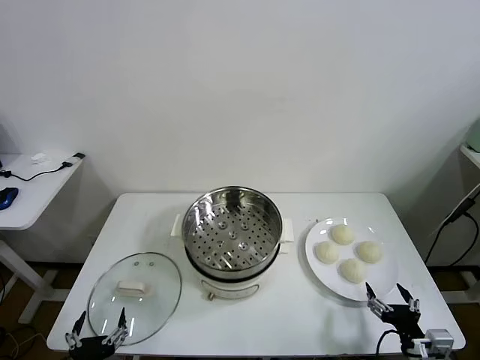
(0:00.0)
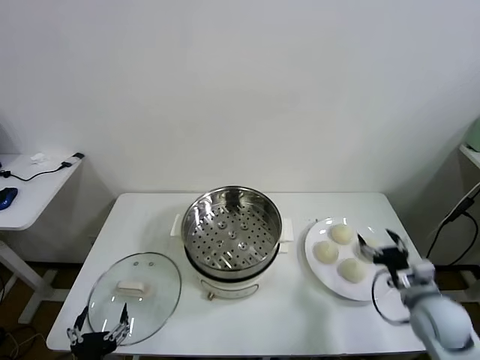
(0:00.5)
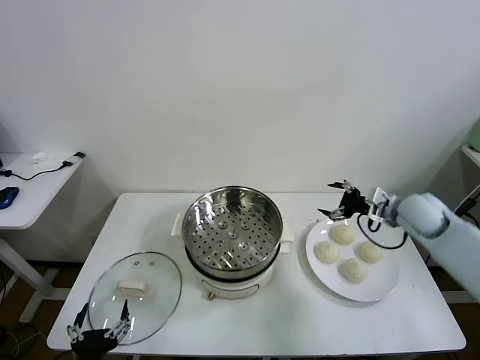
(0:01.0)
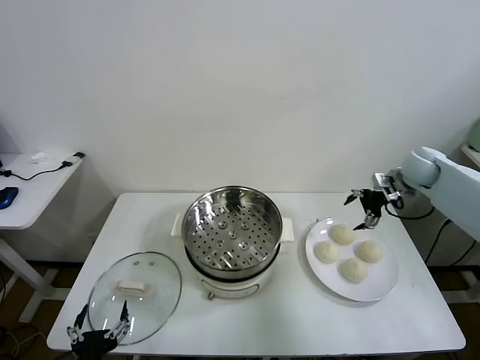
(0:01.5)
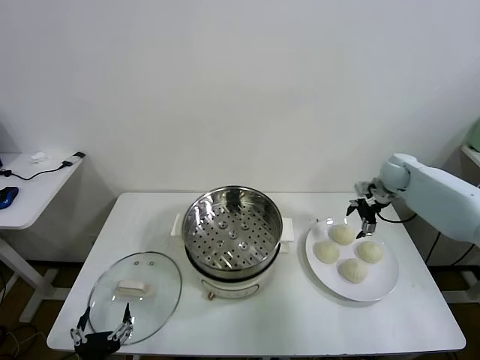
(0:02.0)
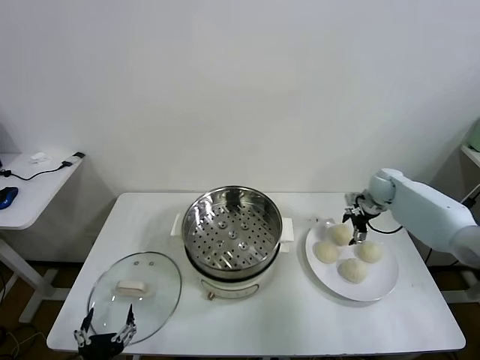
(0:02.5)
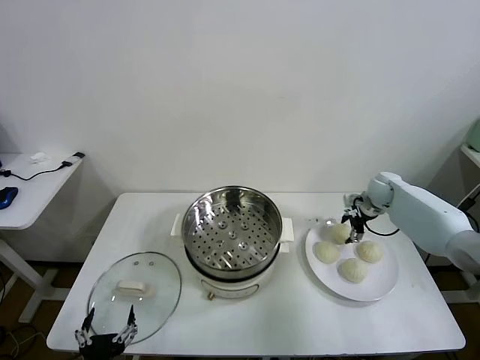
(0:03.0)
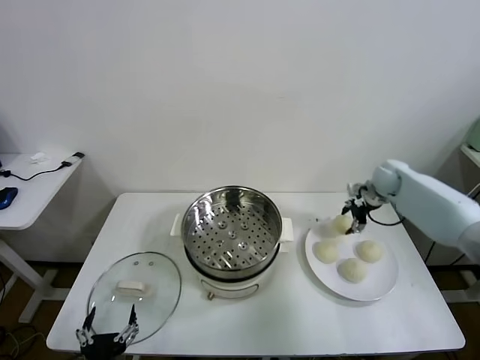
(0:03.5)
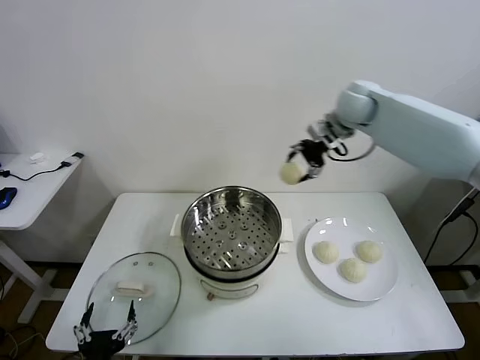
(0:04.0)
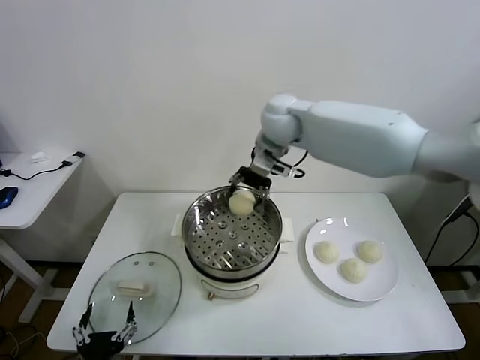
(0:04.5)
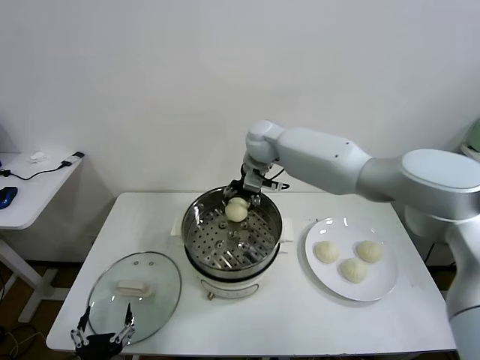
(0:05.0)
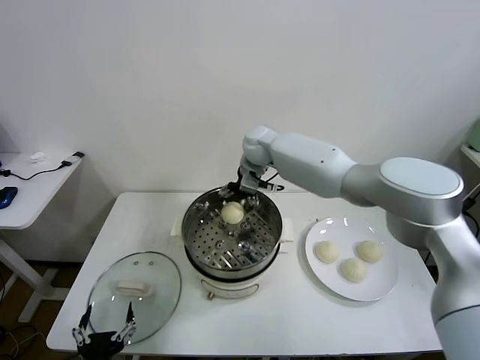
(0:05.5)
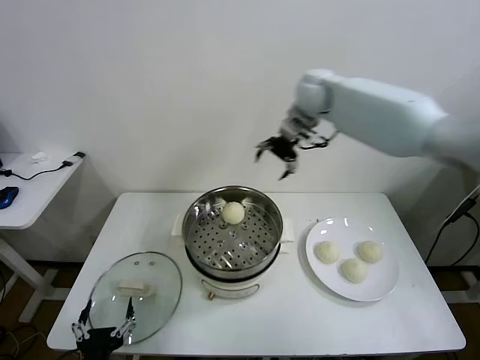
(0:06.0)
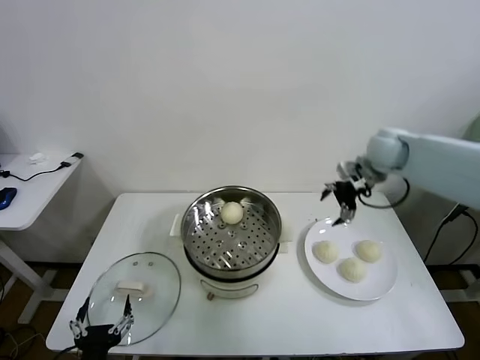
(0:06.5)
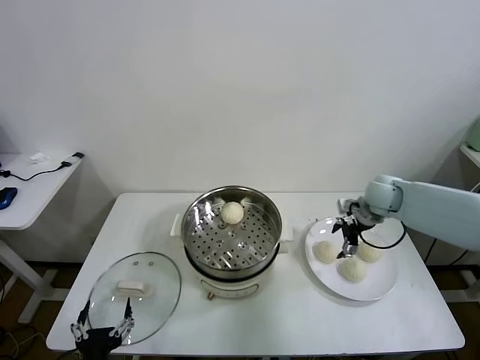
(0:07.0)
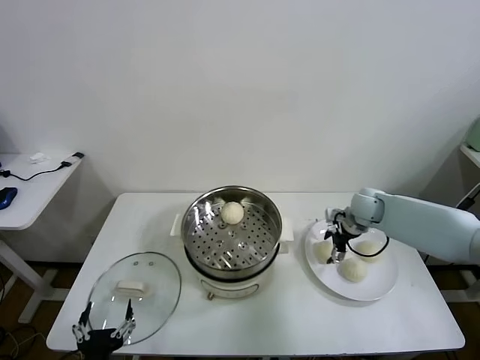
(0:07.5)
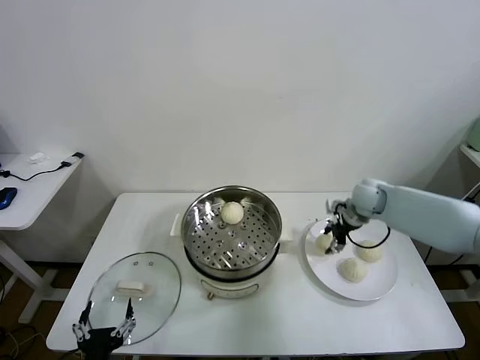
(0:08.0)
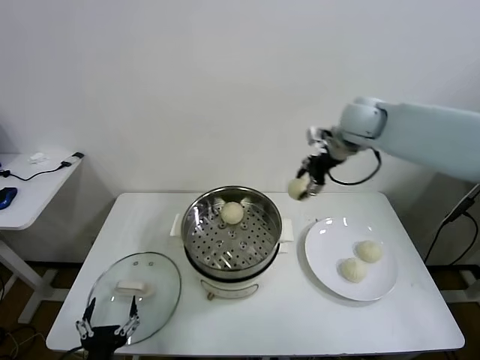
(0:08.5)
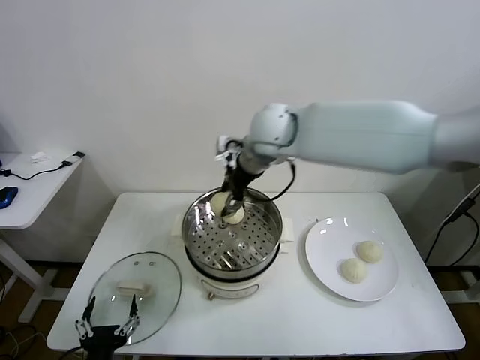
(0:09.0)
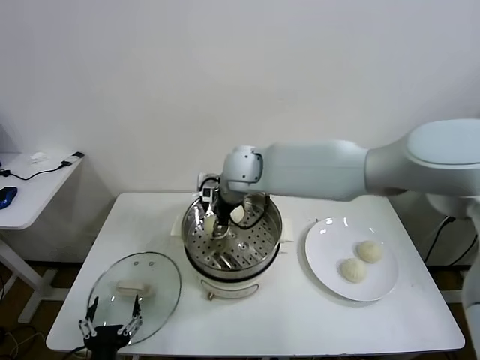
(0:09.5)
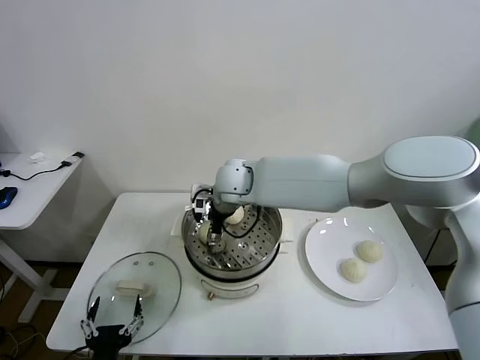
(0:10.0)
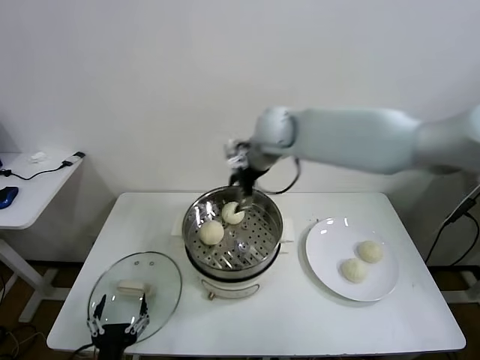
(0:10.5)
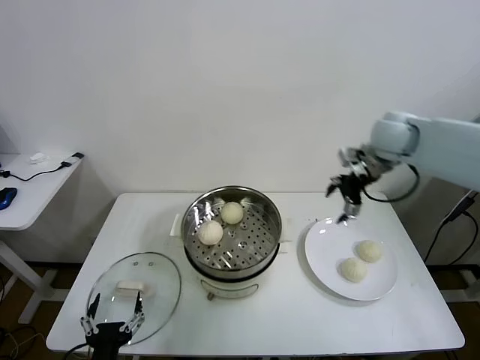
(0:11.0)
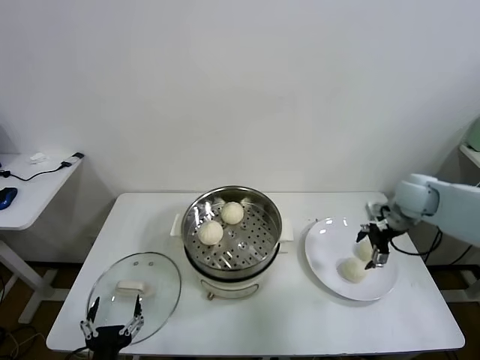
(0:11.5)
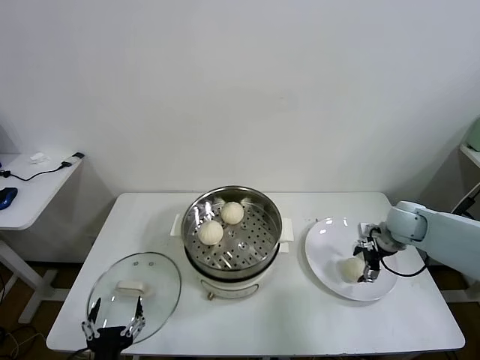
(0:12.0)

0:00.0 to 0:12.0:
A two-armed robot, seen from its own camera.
Task of the whole recording: take steamed baozi put them in steamer.
Step, 0:00.0 to 0:02.5: Grasp the baozi in the plate with right gripper.
Step, 0:03.5 to 0:05.5: Place the baozi on the steamer with right gripper.
Step, 0:06.0 to 0:07.5: Grasp the baozi in the plate with right gripper.
Step, 0:08.0 to 0:10.0: Place the baozi on the steamer with right gripper.
0:02.0 to 0:04.0: The right gripper travels upward and to the left by approximately 30 cm, and closes.
0:04.0 to 0:06.0: The right gripper travels to the left and back again, some 15 cm each way, and opens.
0:06.0 to 0:08.0: The right gripper heads downward and to the right, covering roughly 25 cm, and closes its fingers.
0:08.0 to 0:10.0: The right gripper shifts some 35 cm to the left, and opens up.
0:10.0 to 0:12.0: The right gripper shifts roughly 40 cm to the right.

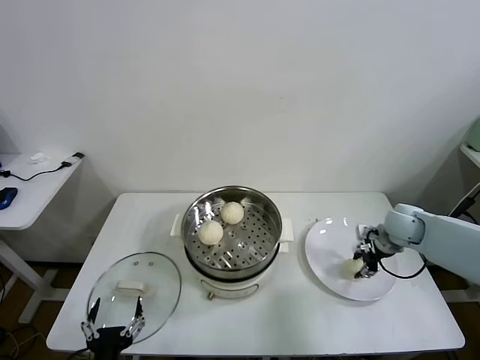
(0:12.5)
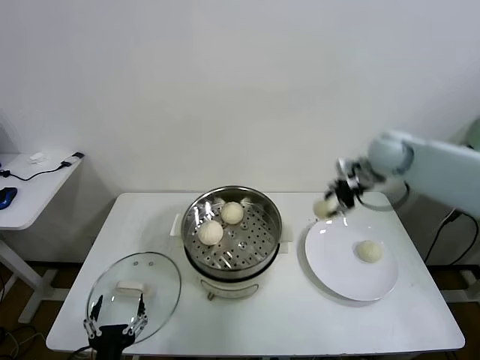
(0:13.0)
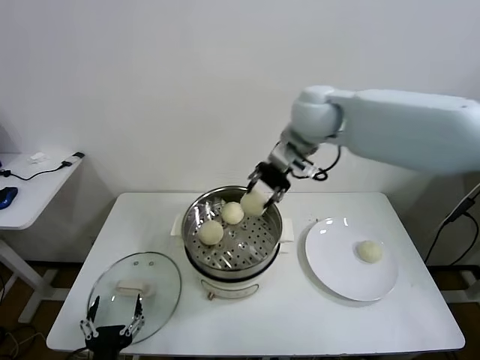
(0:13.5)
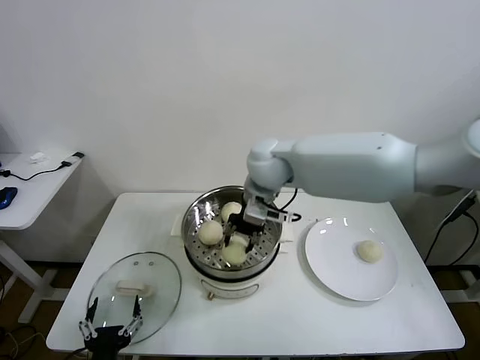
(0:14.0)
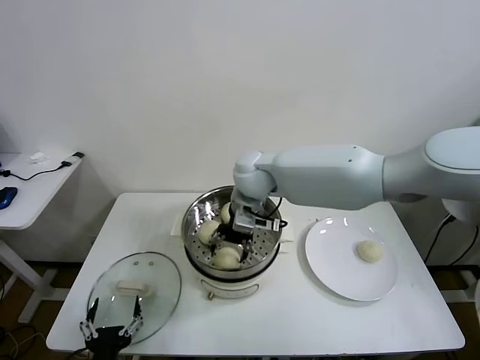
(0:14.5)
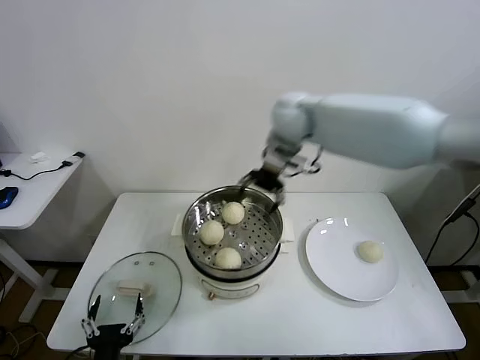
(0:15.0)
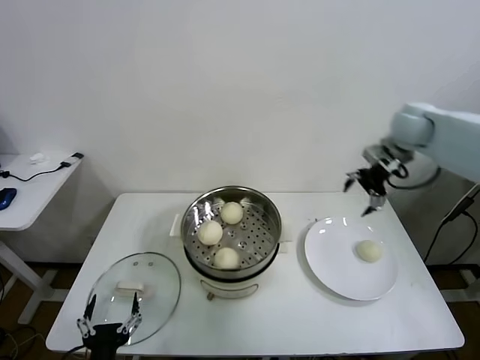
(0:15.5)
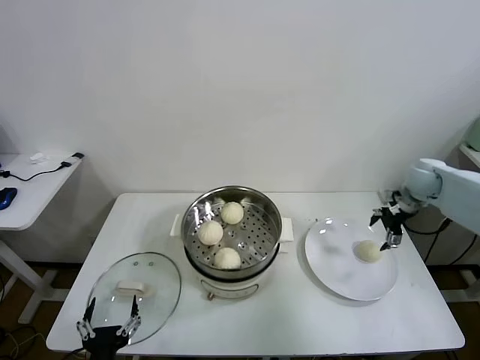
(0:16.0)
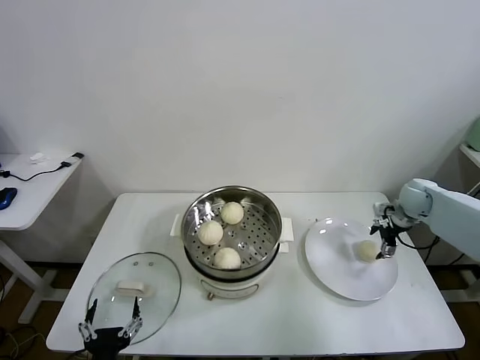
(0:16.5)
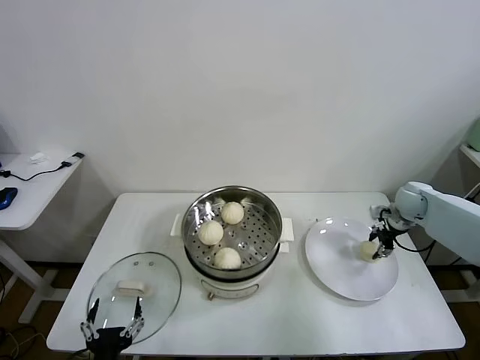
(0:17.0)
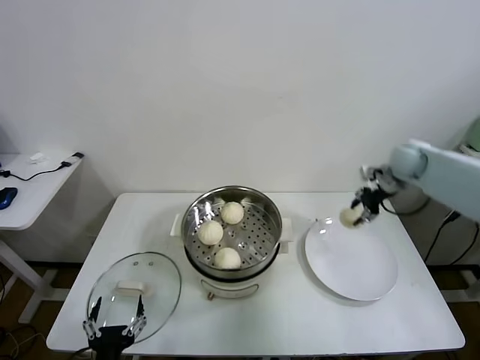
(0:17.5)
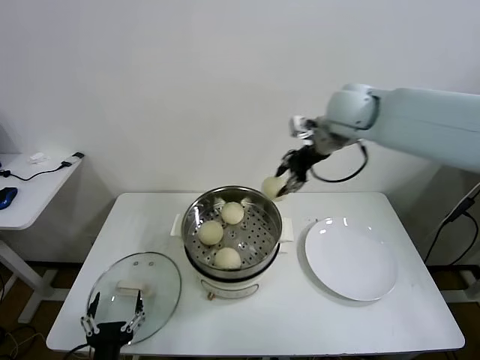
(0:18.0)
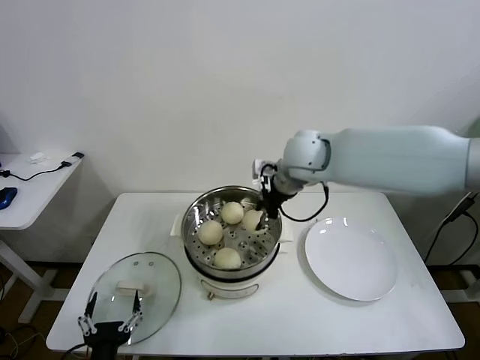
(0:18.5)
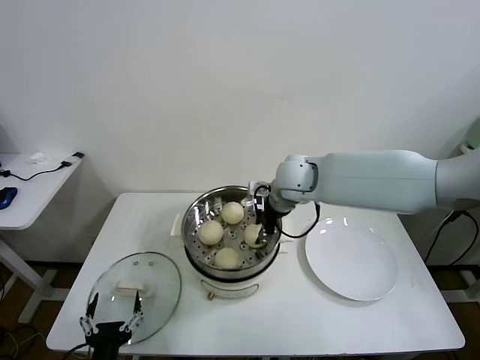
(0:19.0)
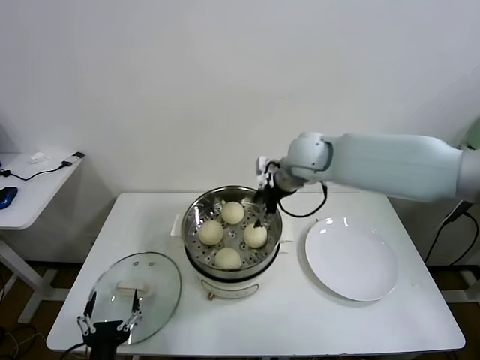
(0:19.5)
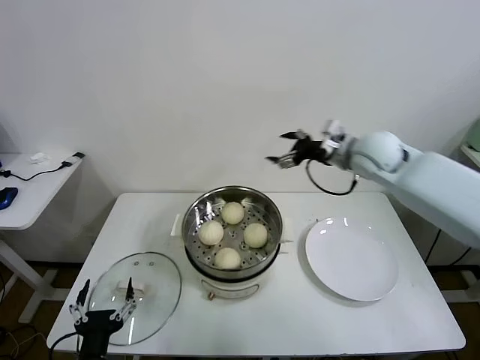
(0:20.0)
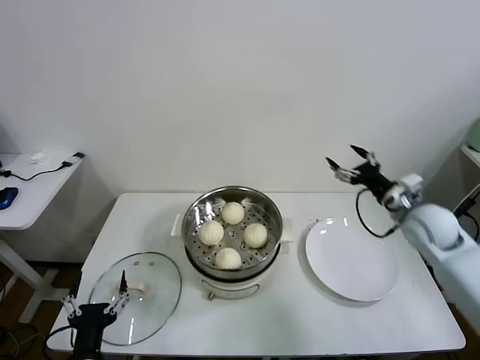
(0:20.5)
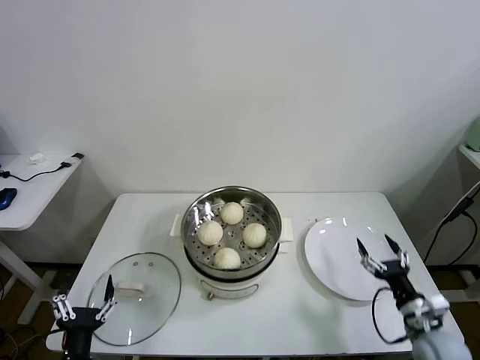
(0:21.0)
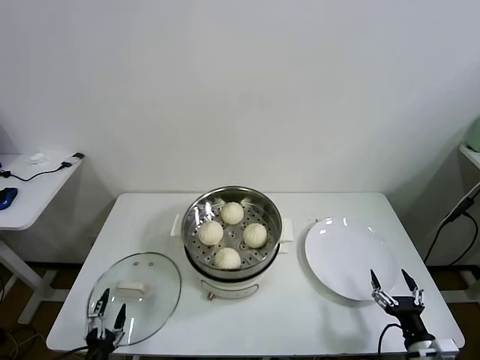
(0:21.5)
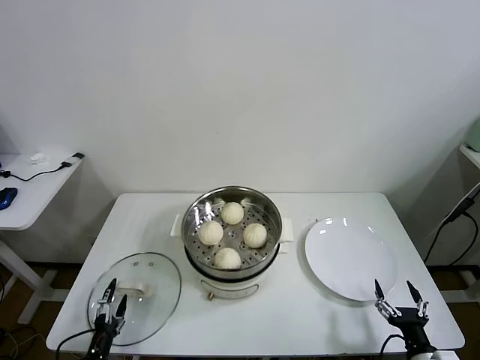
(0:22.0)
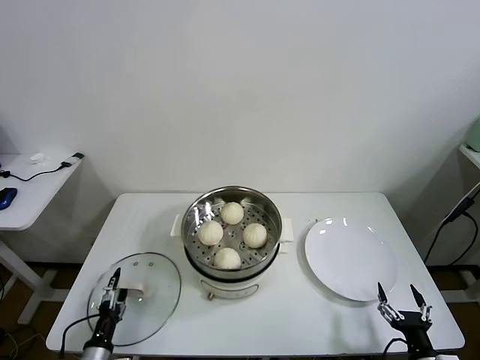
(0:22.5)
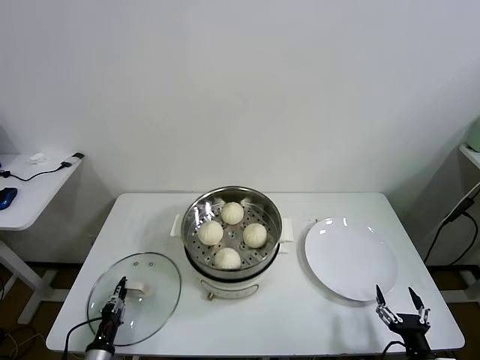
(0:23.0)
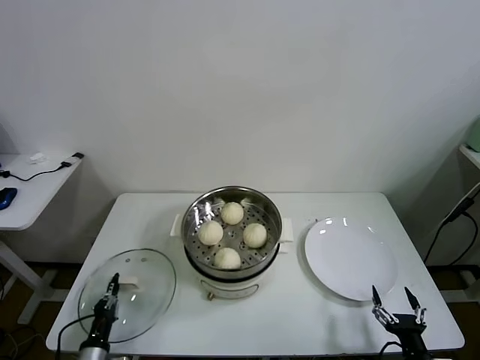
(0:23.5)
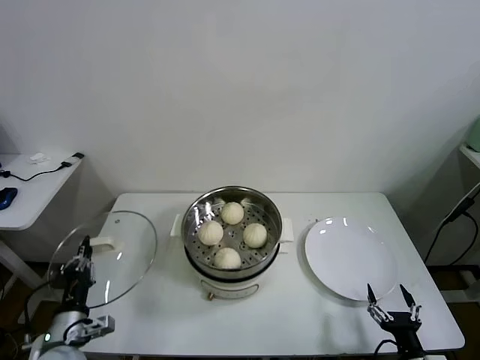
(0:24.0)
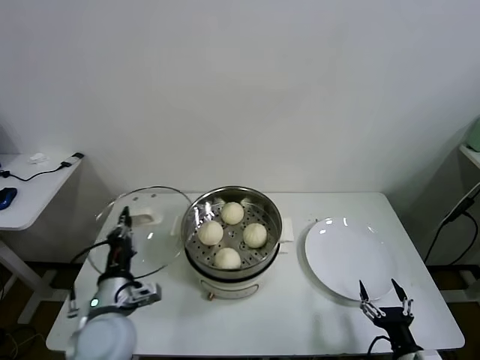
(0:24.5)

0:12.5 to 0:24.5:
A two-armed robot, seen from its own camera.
Task of the whole recording: take steamed baozi put them in steamer.
Step, 0:12.5 to 0:14.5: Place the baozi on the steamer with right gripper.
Step, 0:15.0 to 0:16.5: Grasp the baozi in the plate with right gripper.
Step, 0:17.0 to 0:19.0: Place the baozi on the steamer with right gripper.
Step, 0:19.5 to 0:23.0: Grasp the pot lid with left gripper.
0:12.5 to 0:14.5: The right gripper is displaced to the left by approximately 35 cm, and opens.
0:14.5 to 0:16.5: The right gripper is displaced to the right by roughly 40 cm.
0:16.5 to 0:18.5: The right gripper goes some 35 cm to the left and upward, and closes.
0:18.5 to 0:20.5: The right gripper heads to the right and downward, covering about 30 cm, and opens its fingers.
0:20.5 to 0:22.5: The right gripper heads backward and downward, covering some 35 cm, while the left gripper shifts about 15 cm downward and to the left.
0:22.5 to 0:24.5: The left gripper shifts some 20 cm upward and to the right, and closes.

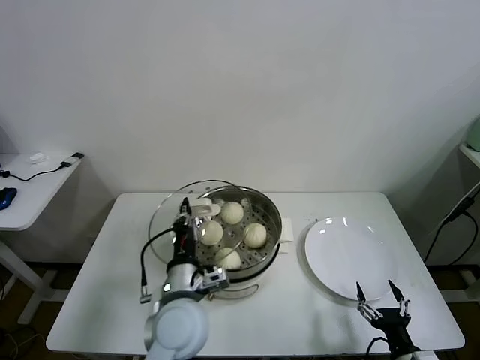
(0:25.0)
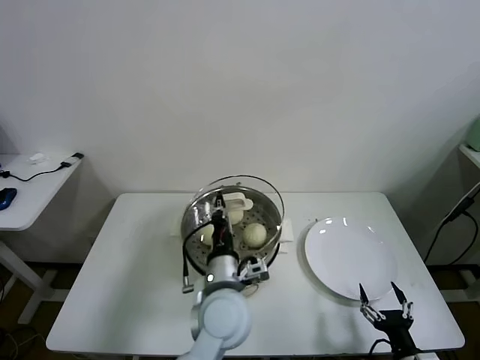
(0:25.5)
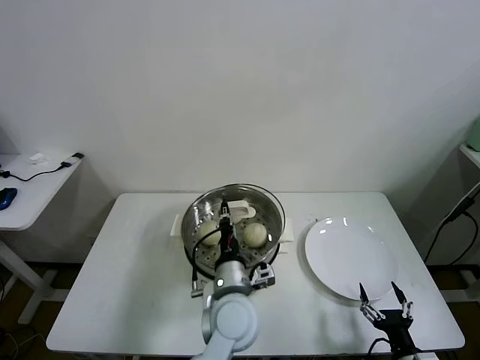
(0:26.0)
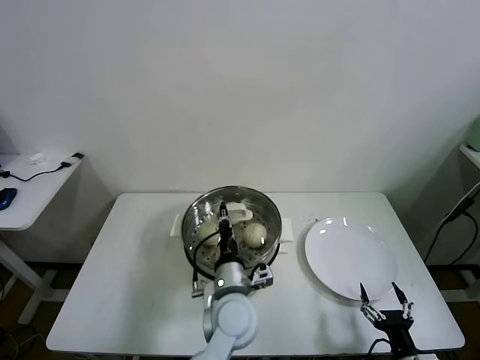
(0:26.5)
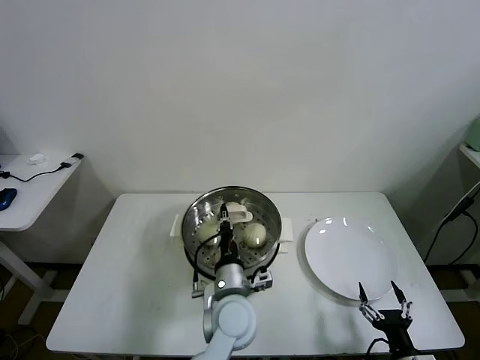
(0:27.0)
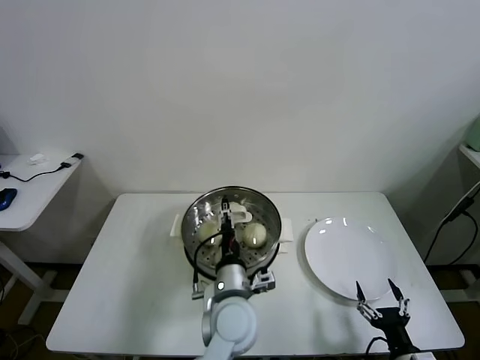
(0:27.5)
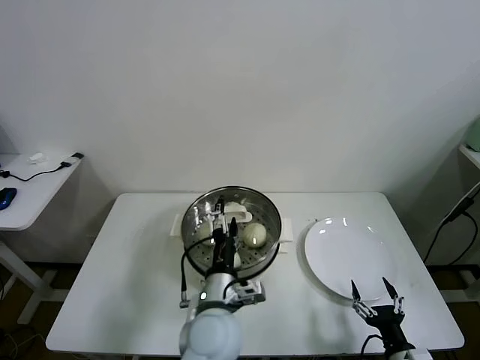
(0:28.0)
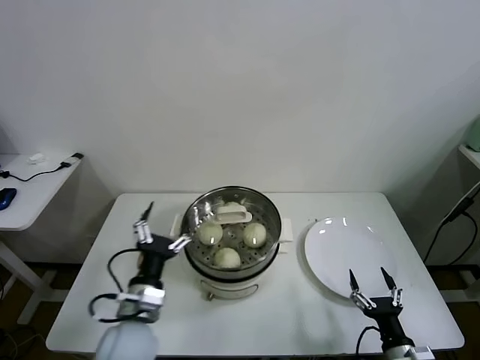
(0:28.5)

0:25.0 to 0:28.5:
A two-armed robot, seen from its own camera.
Task of the whole recording: take steamed baozi put them in steamer.
Step, 0:25.0 to 0:27.5: Place the pot lid on the steamer with left gripper.
0:25.0 to 0:27.0: The left gripper travels to the right and downward by some 10 cm.
0:27.0 to 0:28.5: The left gripper shifts roughly 15 cm to the left, and opens its fingers.
